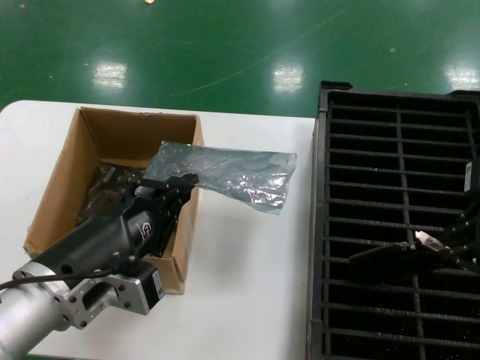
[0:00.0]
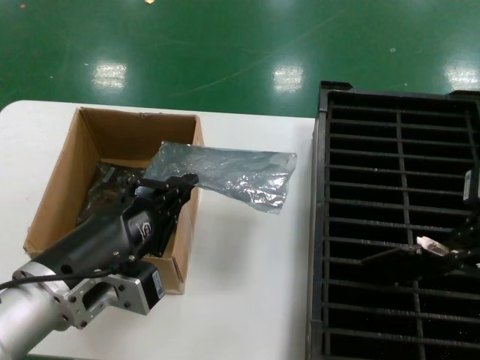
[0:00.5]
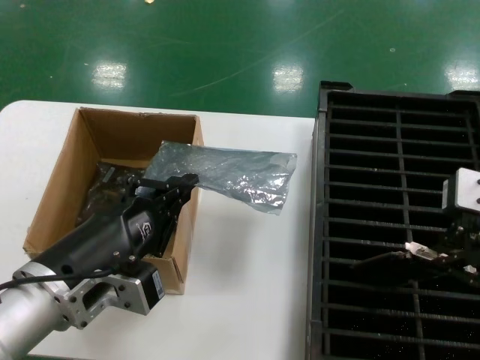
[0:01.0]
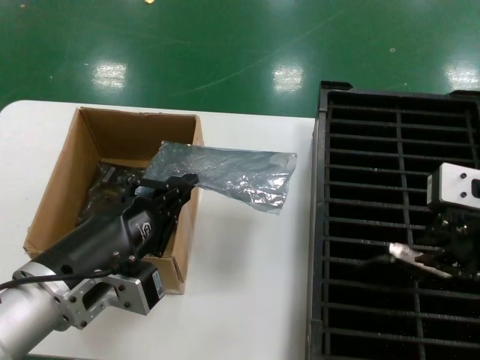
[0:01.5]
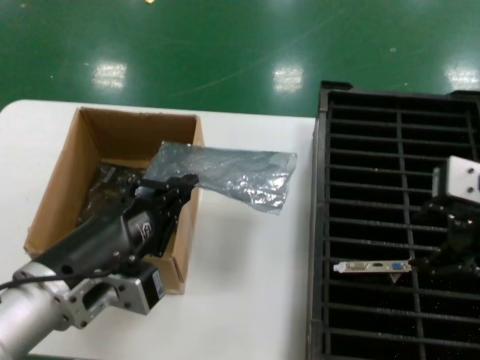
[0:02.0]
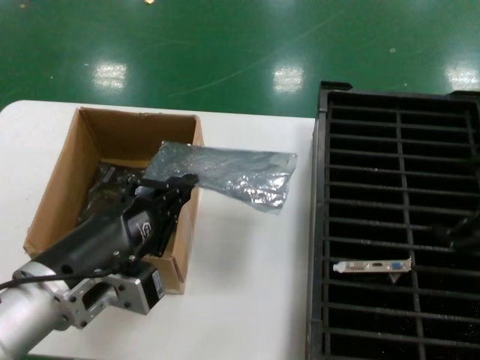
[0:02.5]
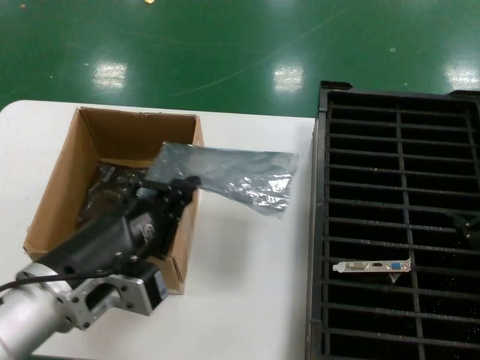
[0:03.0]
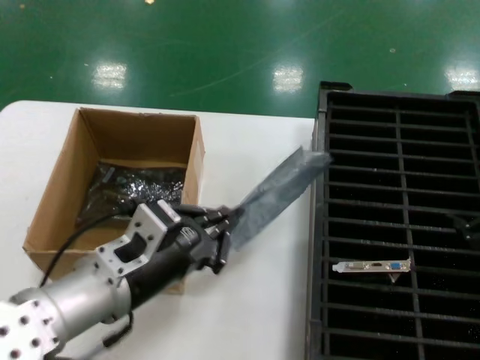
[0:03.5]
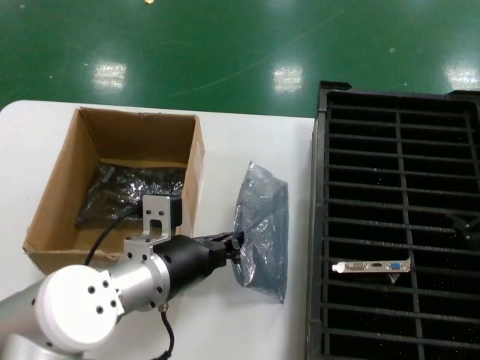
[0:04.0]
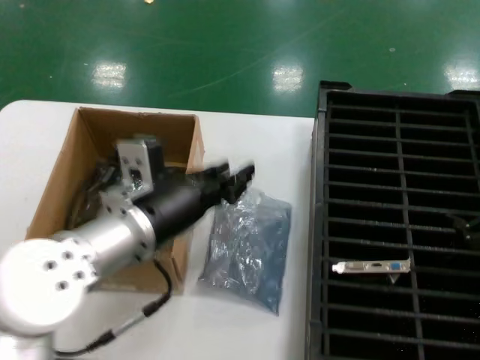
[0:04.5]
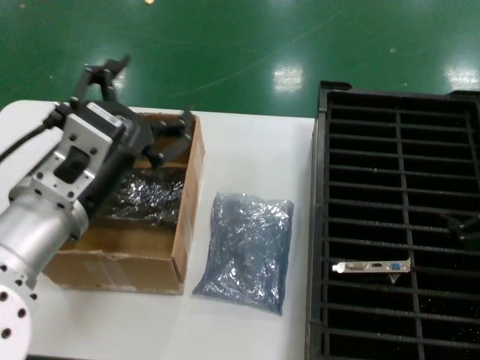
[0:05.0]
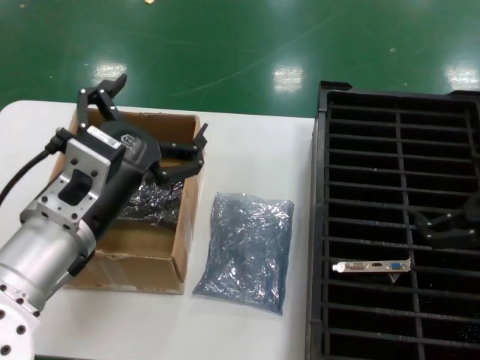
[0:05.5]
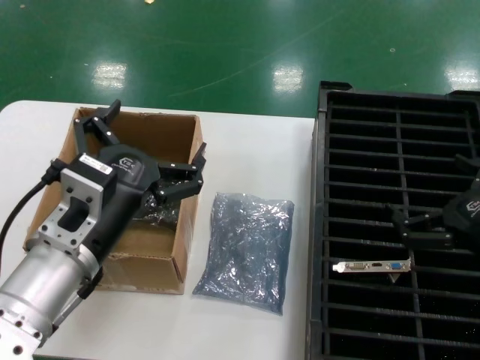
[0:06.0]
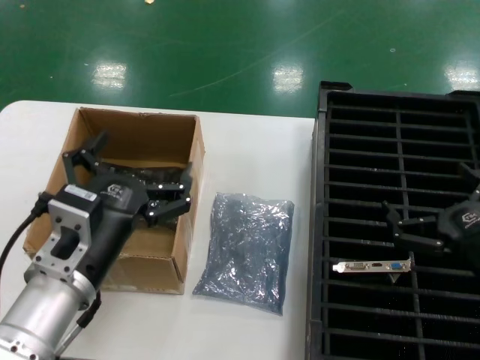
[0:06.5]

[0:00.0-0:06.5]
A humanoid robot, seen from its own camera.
Task of the whole recording: take out graphics card from box remove packaging put into black container.
Step, 0:02.5 to 0:05.0: Place the down the bag.
0:00.0 to 0:02.0: The hands make only small movements.
0:02.0 to 0:04.5: The left hand is displaced forward by about 10 cm, while the right hand is displaced to the right and downward by some 15 cm.
0:04.5 to 0:06.5: The right hand shifts some 15 cm downward and to the left; the left hand shifts approximately 5 cm backward.
